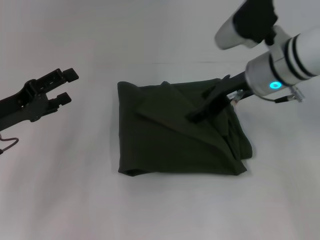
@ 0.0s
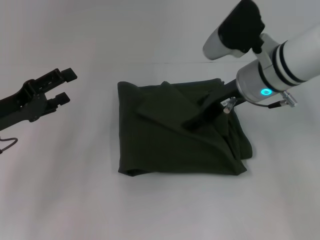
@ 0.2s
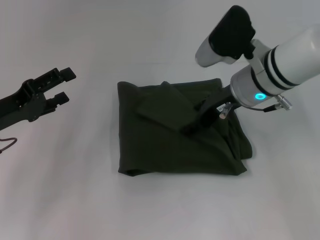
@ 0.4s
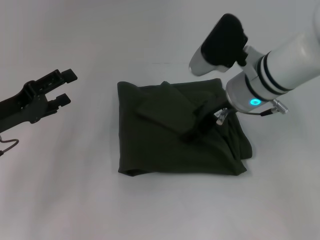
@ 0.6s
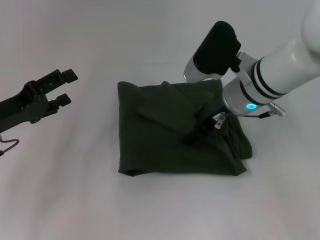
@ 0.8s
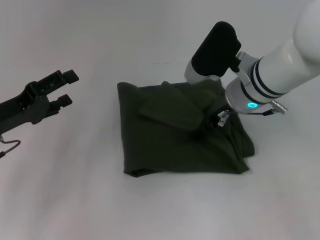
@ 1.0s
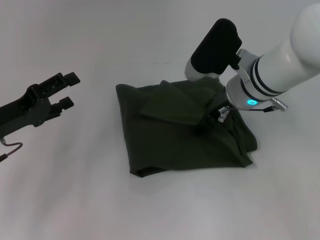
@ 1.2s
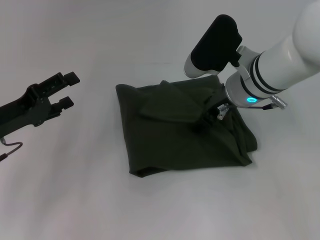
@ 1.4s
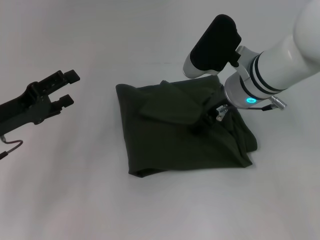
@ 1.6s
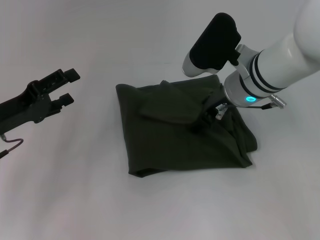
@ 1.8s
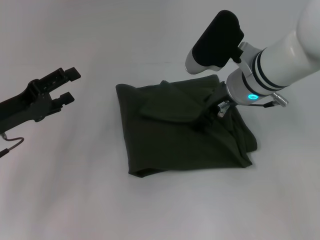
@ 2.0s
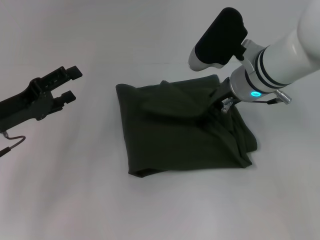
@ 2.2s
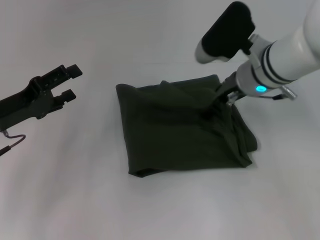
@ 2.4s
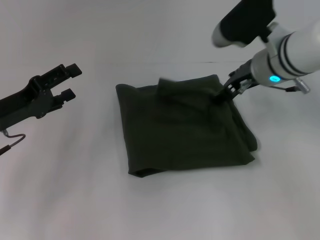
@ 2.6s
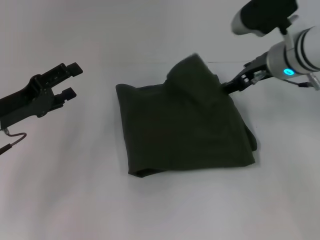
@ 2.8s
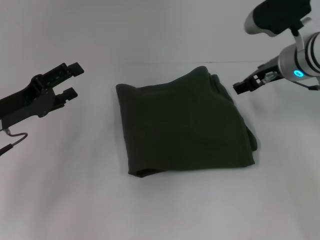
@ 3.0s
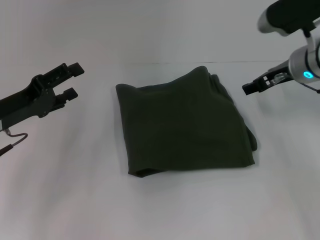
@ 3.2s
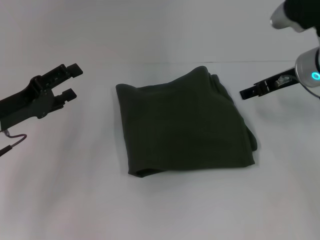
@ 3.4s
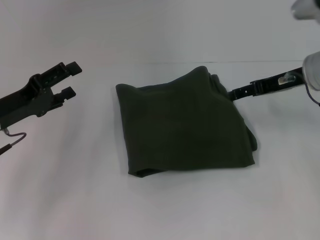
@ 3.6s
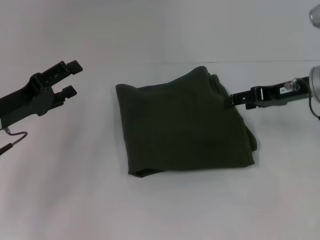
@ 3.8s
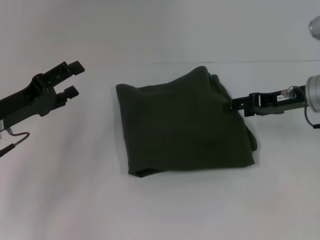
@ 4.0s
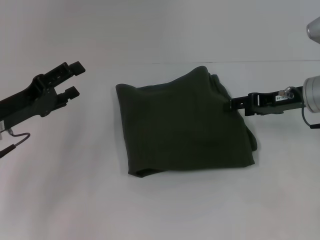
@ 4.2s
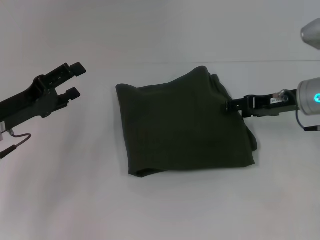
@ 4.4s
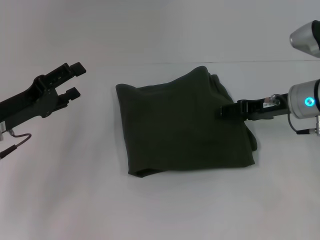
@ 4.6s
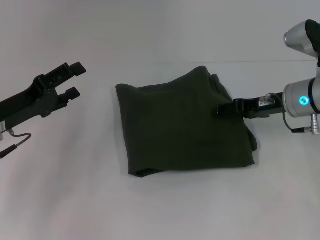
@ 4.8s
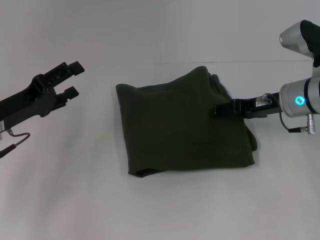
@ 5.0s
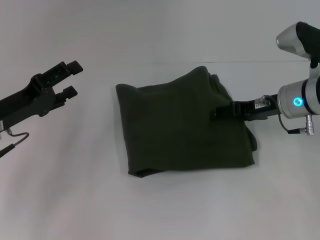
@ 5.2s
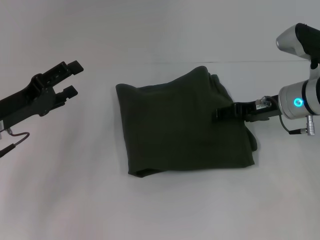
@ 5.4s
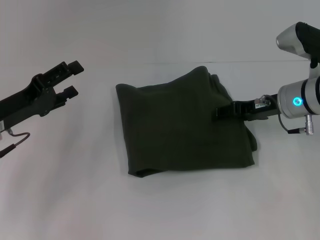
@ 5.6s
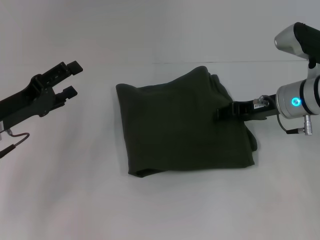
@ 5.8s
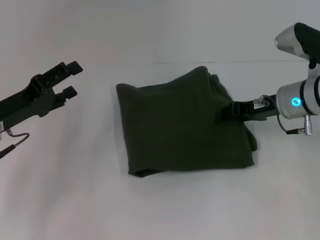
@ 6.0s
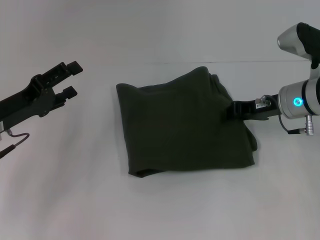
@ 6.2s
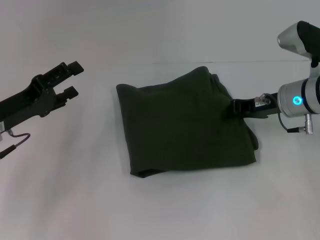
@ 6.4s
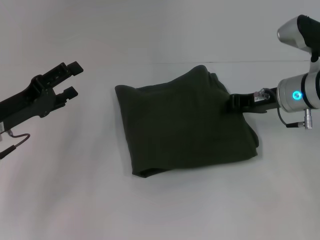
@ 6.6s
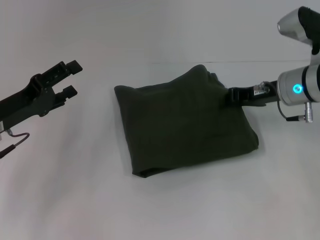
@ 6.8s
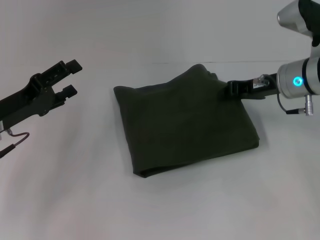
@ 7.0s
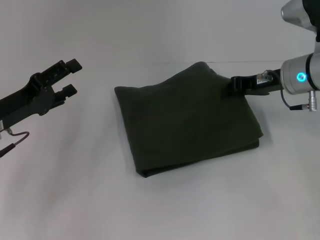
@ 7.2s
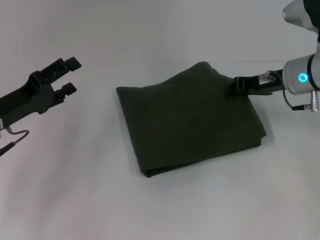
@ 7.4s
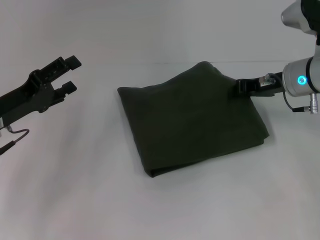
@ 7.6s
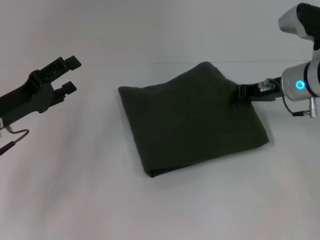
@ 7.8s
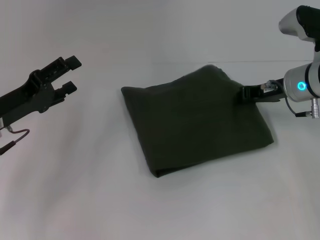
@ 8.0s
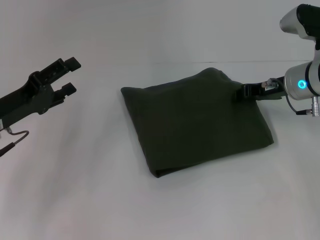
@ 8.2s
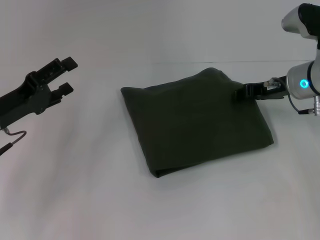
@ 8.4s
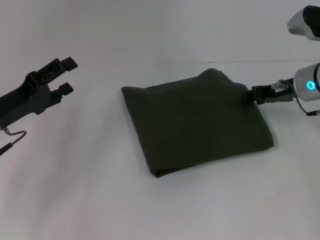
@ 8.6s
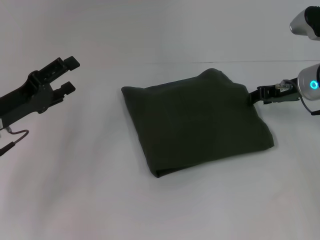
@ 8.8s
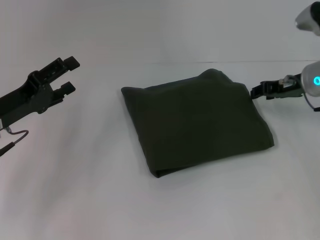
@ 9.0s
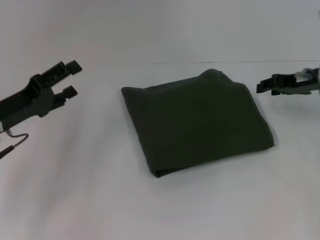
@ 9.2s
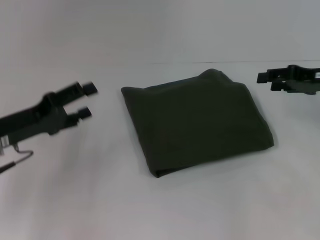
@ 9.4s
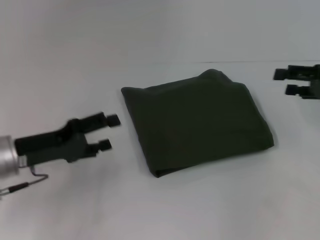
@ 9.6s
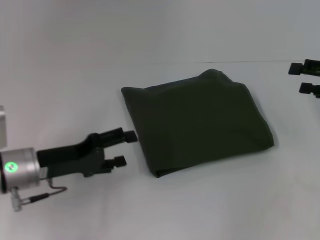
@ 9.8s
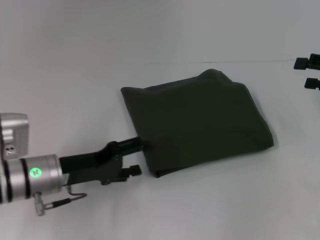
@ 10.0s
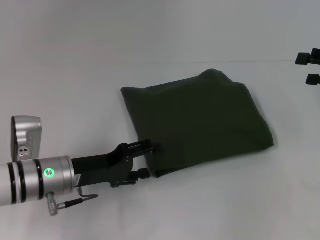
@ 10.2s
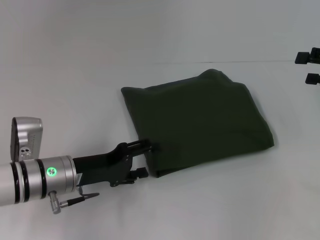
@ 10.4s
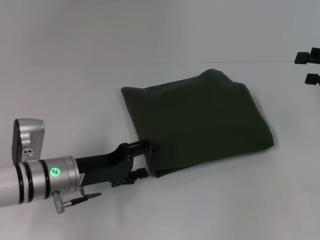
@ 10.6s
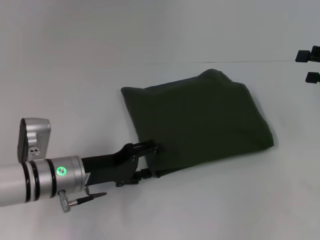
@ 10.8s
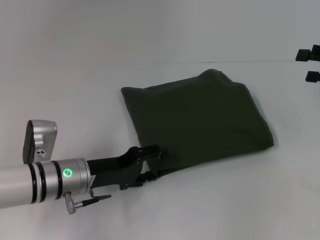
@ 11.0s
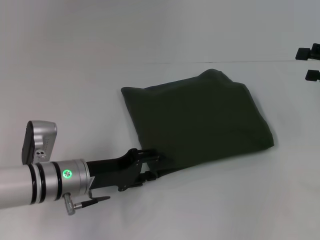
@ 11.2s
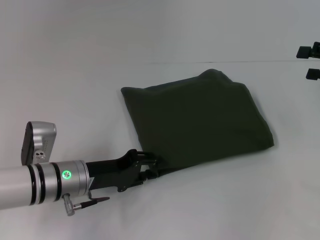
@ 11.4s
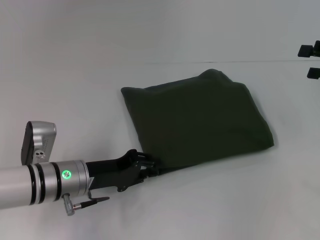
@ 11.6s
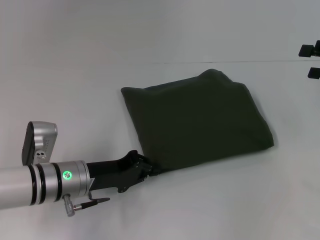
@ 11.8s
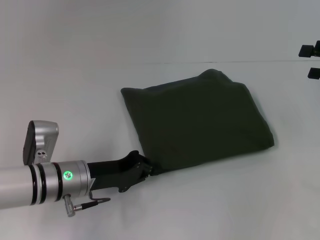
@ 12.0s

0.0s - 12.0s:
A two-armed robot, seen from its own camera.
0.0s - 1.6s: The grippers stay close to where they were, moving slightly.
1.6s - 3.0s: The right gripper travels to the right by approximately 10 cm.
3.0s - 4.4s: The right gripper travels to the right and downward by some 5 cm.
4.4s - 6.0s: There are only small adjustments of the grippers.
6.0s - 7.6s: The right gripper closes.
7.6s - 9.0s: The right gripper opens its fingers.
9.0s - 10.4s: The right gripper shifts roughly 15 cm to the right and backward, and opens; the left gripper heads to the right and downward, covering about 10 cm.
10.4s - 12.0s: The left gripper closes up.

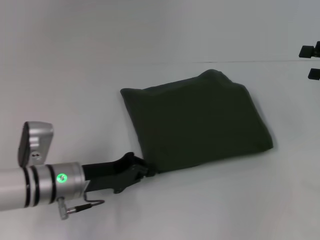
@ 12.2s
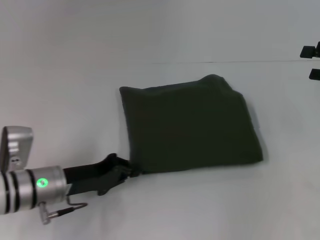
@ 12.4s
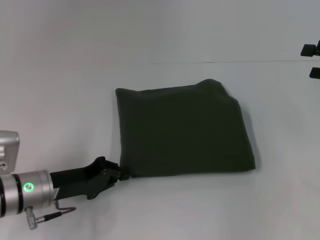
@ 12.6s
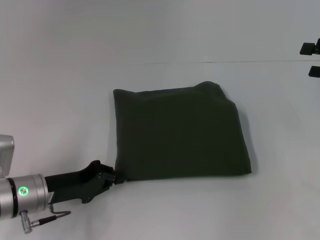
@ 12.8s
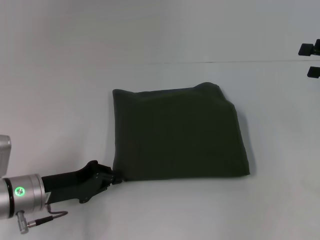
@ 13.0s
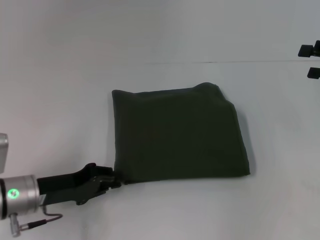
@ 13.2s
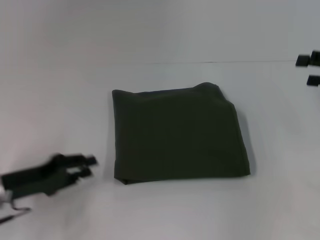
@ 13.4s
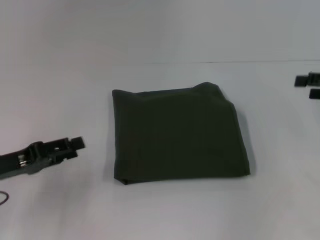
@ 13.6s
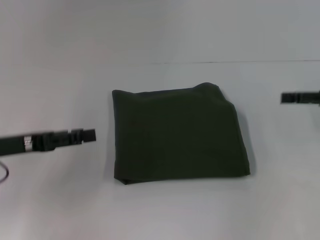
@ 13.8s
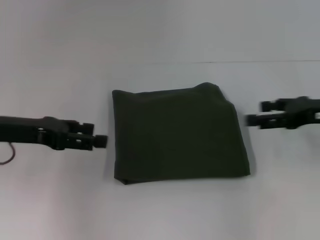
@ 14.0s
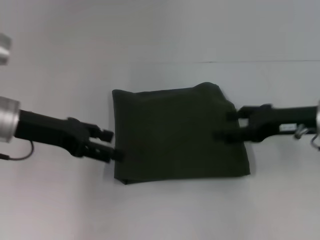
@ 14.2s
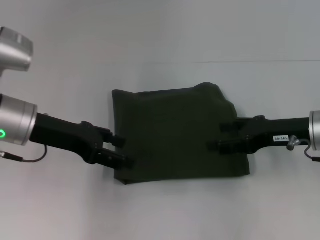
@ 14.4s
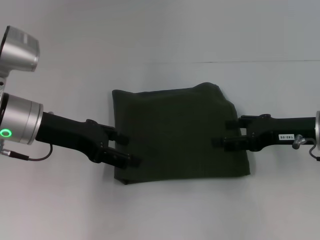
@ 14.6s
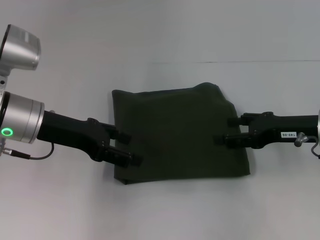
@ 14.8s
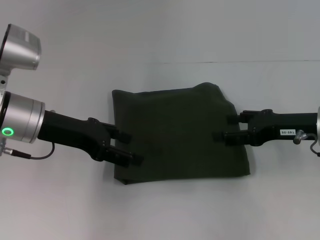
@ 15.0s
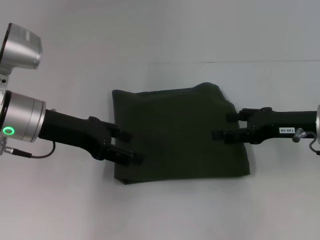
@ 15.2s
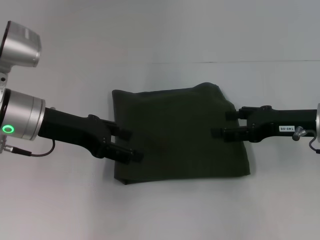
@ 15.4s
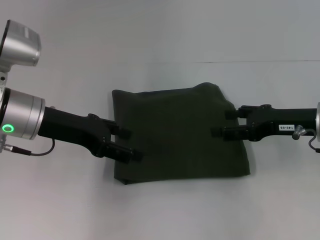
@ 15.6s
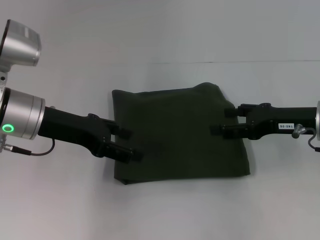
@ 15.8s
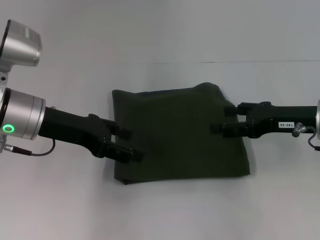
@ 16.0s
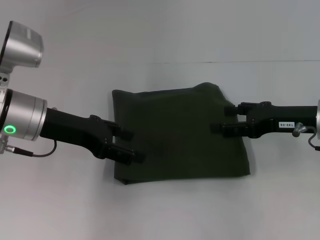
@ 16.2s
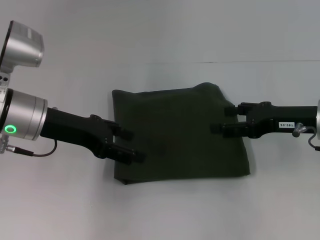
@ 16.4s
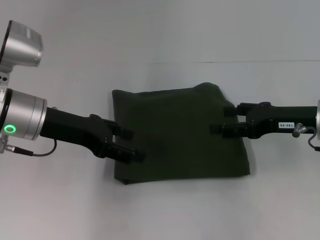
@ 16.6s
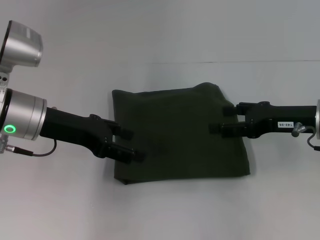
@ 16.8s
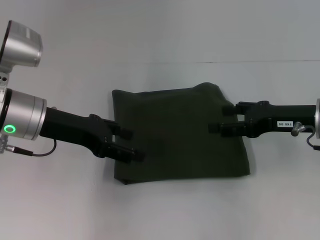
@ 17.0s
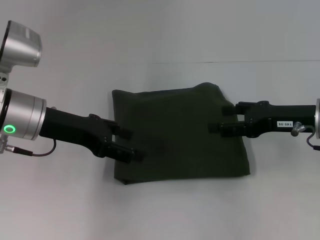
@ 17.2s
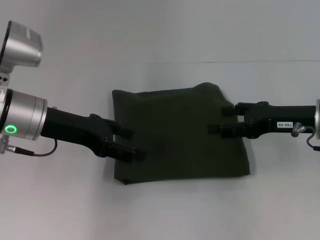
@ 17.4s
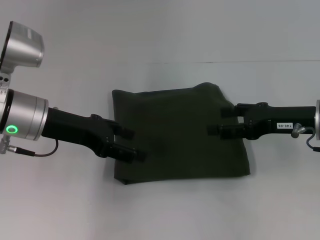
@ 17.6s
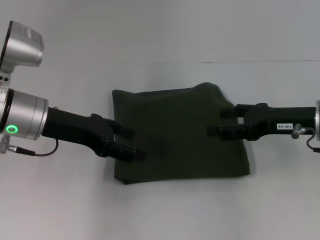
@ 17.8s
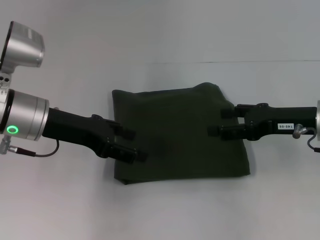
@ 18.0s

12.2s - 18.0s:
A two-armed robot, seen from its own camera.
12.2s - 13.6s: The left gripper is displaced to the left and upward by about 15 cm, and opens up.
13.6s - 15.0s: The left gripper heads to the right, forward and upward, covering approximately 15 cm, and opens up, while the right gripper is displaced to the left by approximately 10 cm.
15.0s - 18.0s: Both grippers stay put.

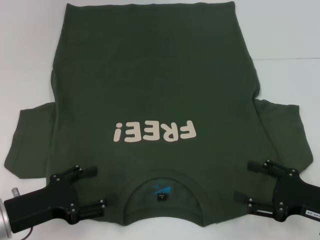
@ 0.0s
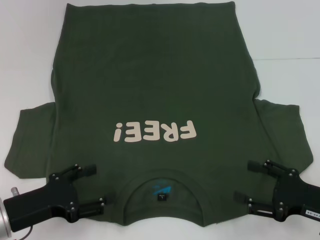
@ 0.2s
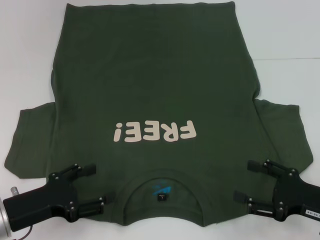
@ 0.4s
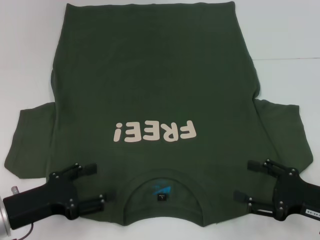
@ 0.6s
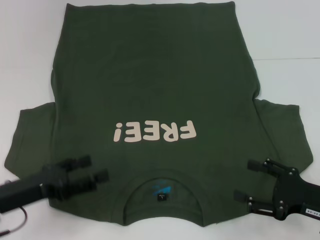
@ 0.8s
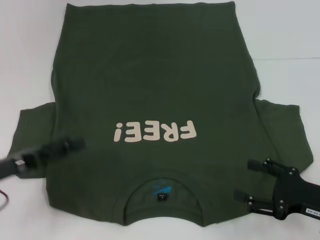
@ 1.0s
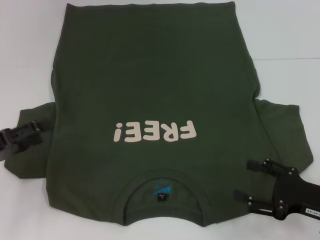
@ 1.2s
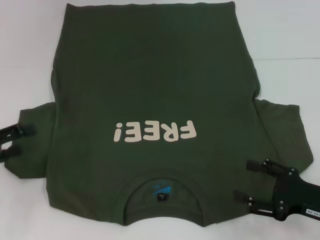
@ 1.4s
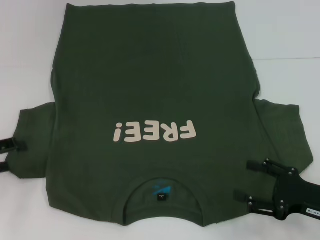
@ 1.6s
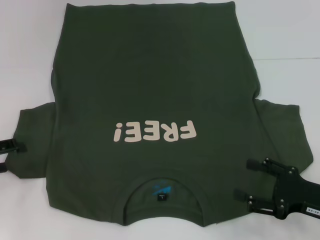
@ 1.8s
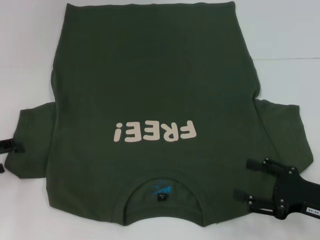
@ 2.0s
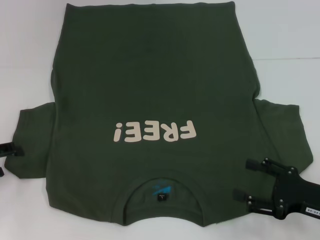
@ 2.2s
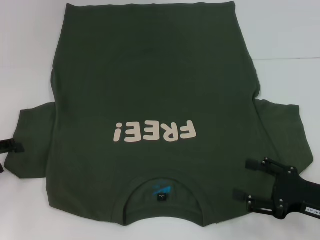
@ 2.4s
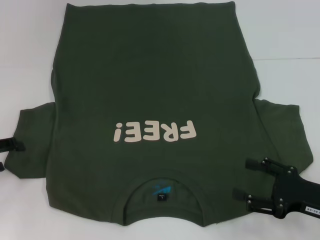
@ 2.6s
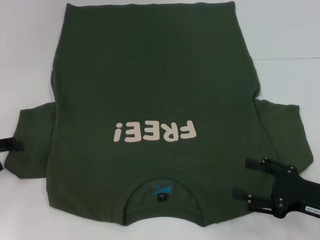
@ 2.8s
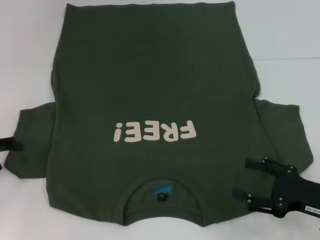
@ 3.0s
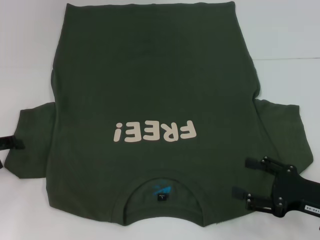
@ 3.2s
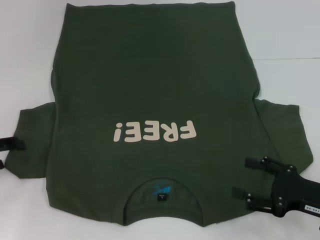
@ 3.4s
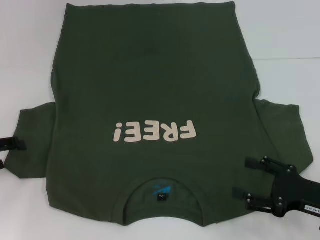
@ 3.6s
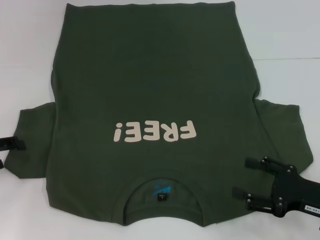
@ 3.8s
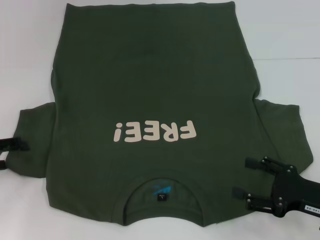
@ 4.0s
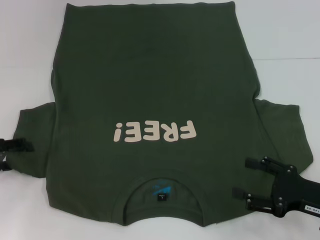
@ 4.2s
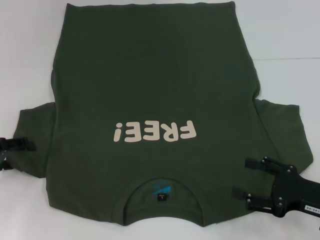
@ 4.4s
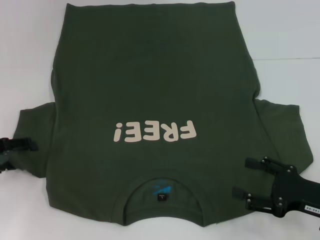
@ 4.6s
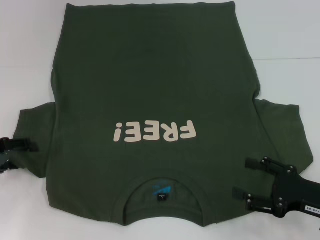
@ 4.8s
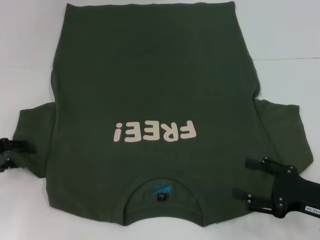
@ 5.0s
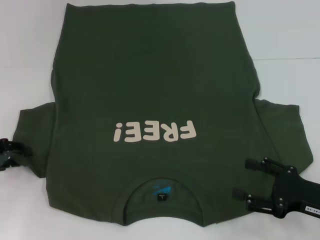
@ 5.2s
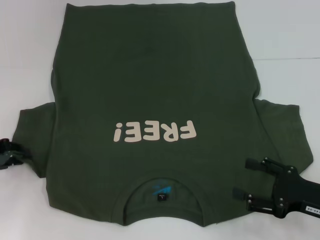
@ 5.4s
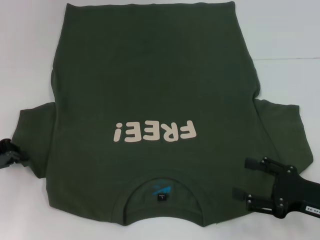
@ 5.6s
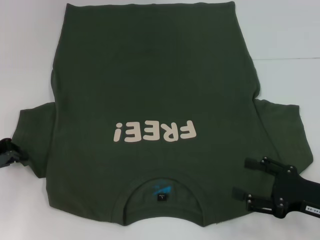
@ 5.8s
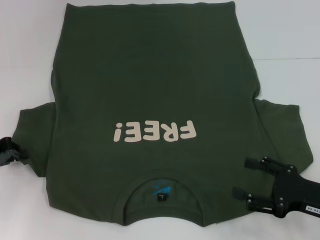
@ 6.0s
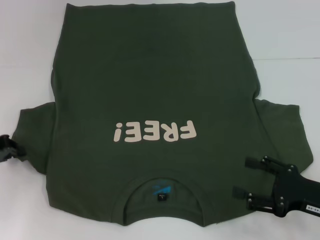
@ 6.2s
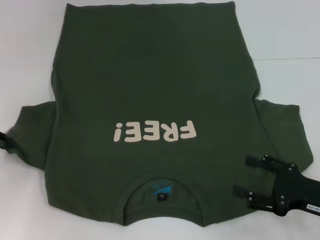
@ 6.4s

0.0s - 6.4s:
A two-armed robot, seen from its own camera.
0.0s - 1.6s: The left gripper shifts some 15 cm to the left, upward and forward.
1.6s - 3.2s: The grippers stay close to where they were, moving slightly.
4.8s - 6.4s: The left gripper closes.
